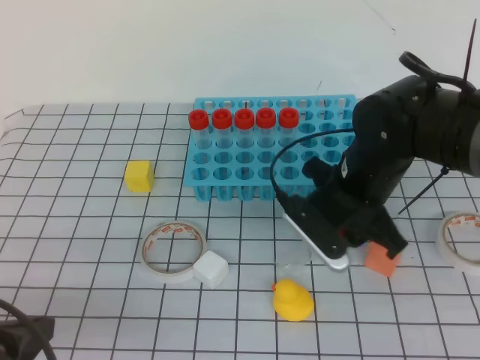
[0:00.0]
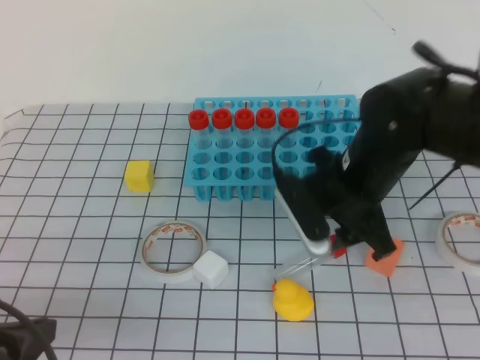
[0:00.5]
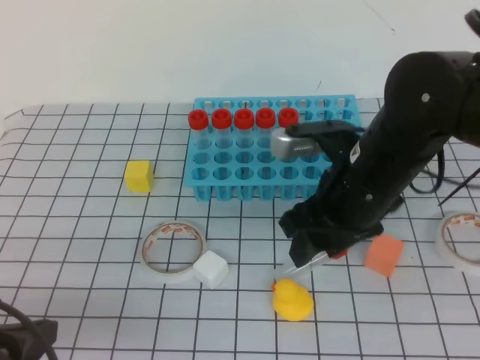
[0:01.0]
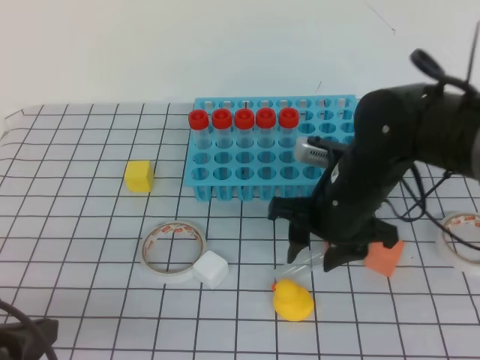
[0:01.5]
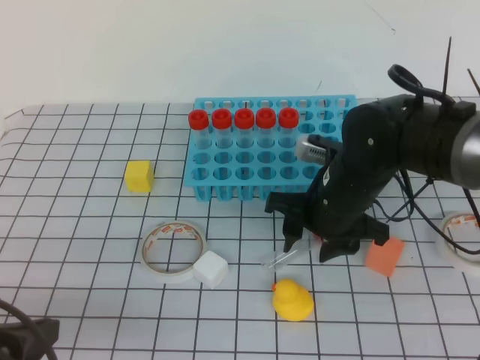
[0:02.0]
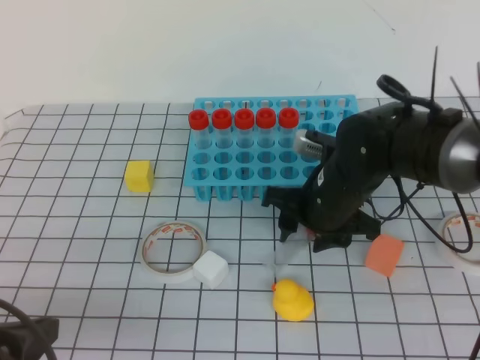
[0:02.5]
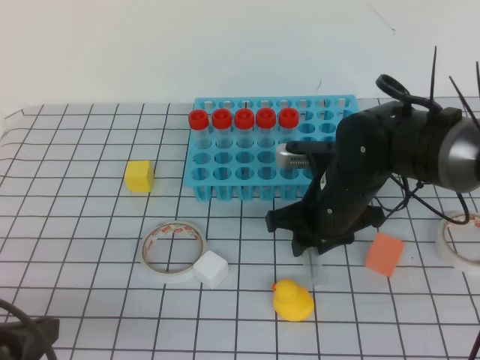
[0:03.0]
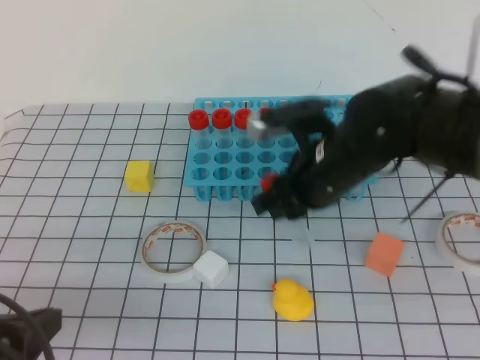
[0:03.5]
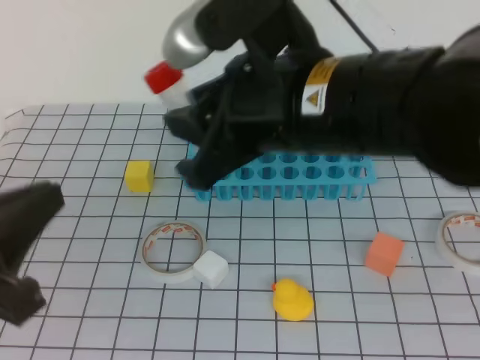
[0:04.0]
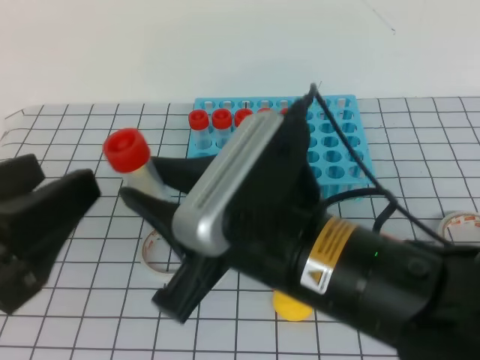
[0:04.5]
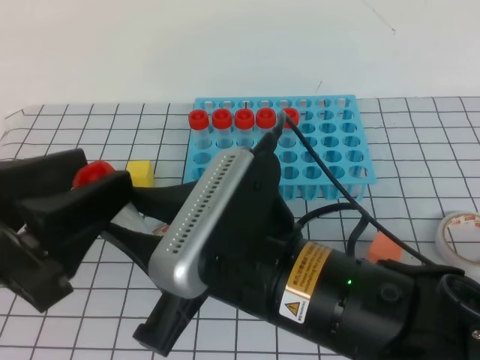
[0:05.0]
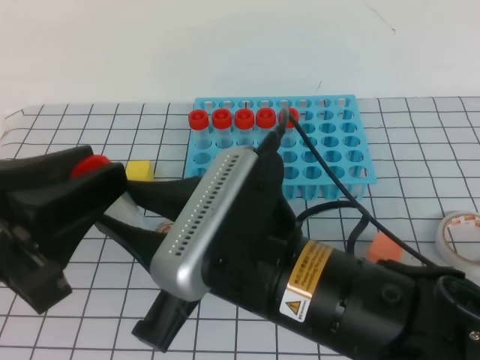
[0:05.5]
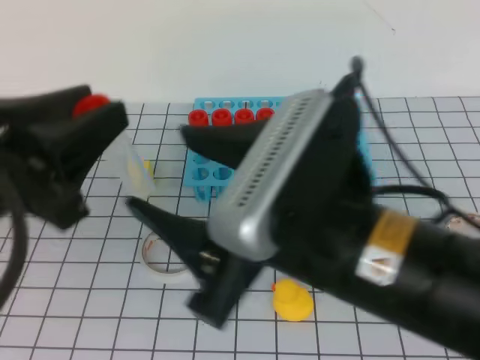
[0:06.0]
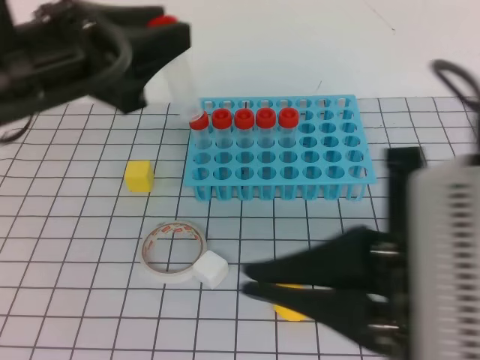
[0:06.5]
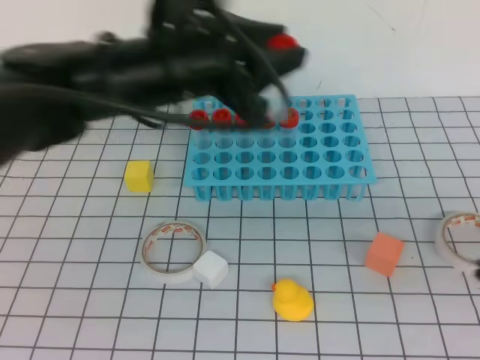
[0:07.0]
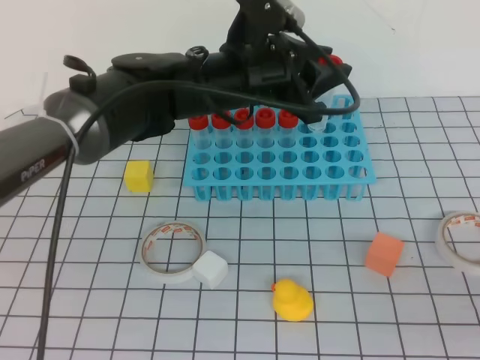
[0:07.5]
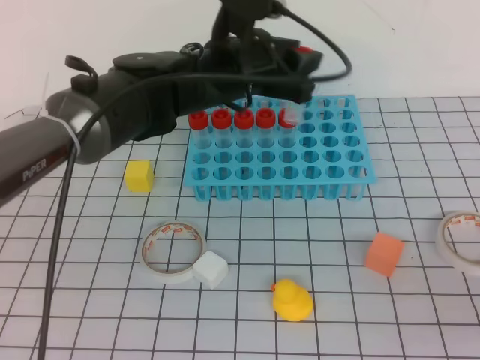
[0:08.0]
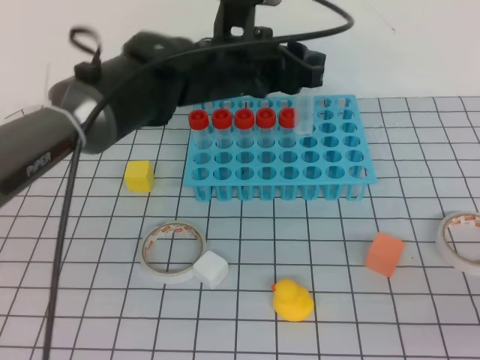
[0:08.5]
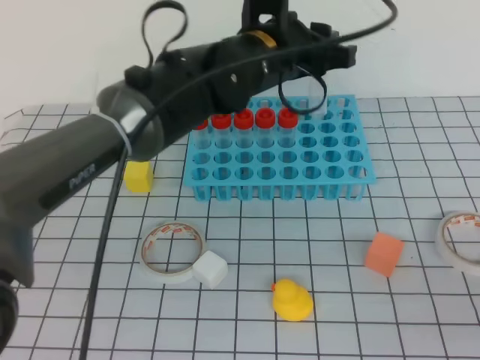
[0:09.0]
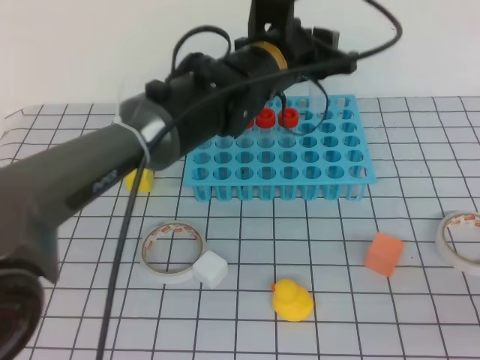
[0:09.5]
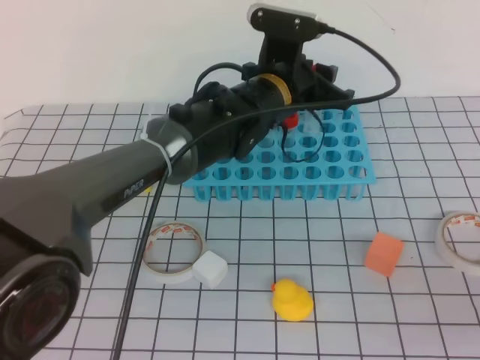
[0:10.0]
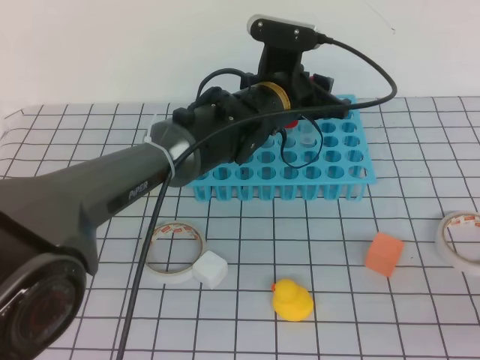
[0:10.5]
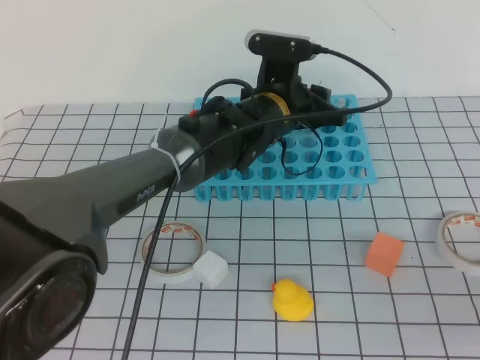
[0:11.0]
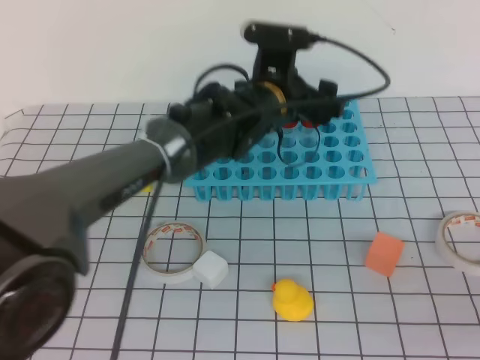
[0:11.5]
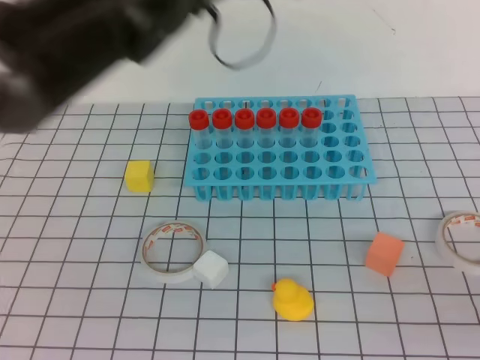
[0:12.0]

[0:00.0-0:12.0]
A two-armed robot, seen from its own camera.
0:02.0 to 0:04.0: The left gripper goes roughly 10 cm upward; the right gripper travels upward and backward by approximately 20 cm, and closes up.
0:04.0 to 0:06.0: The right gripper goes roughly 10 cm backward, and opens its fingers; the left gripper goes some 5 cm forward, and opens.
0:06.0 to 0:08.0: The right gripper goes roughly 20 cm to the right, and closes up, while the left gripper is displaced forward and to the right by about 30 cm.
0:08.0 to 0:10.0: The left gripper goes roughly 5 cm to the right.
0:10.0 to 0:12.0: The left gripper shifts some 20 cm upward, backward and to the left, and closes its fingers.

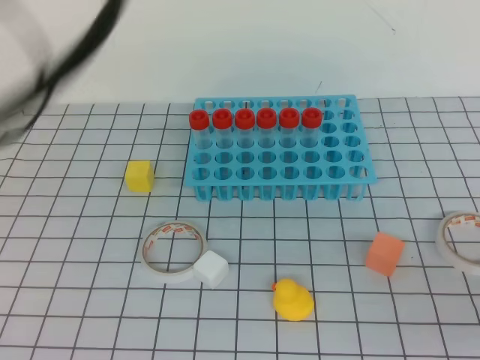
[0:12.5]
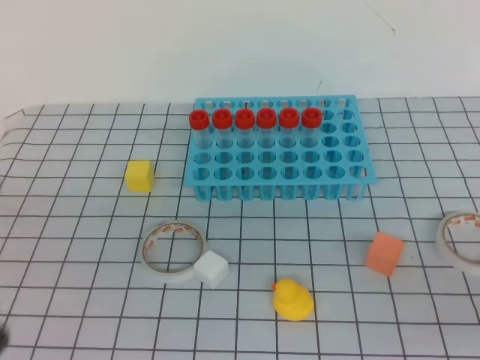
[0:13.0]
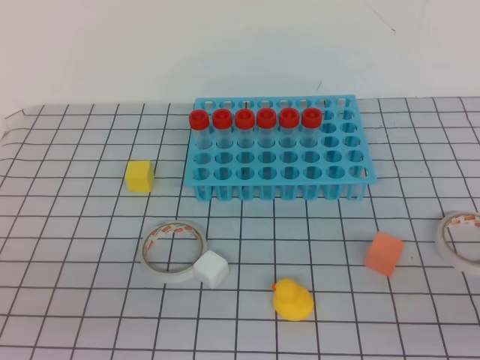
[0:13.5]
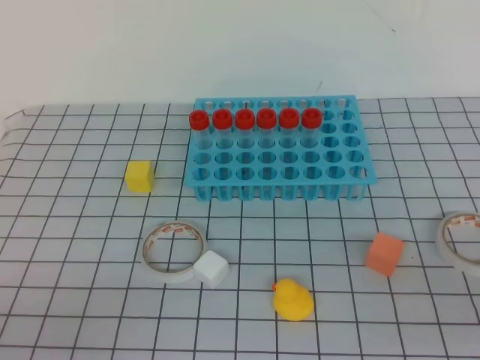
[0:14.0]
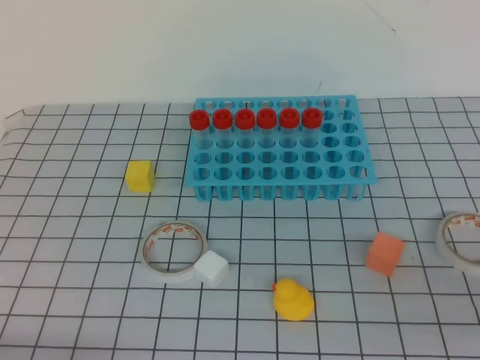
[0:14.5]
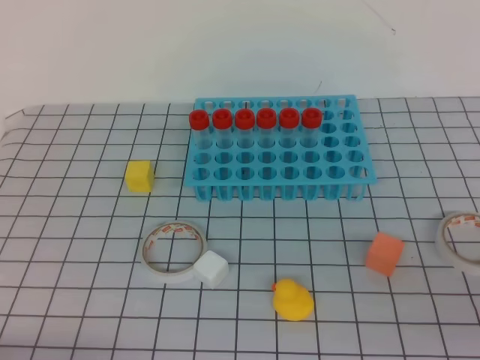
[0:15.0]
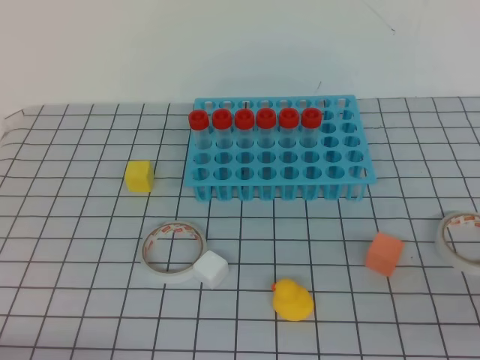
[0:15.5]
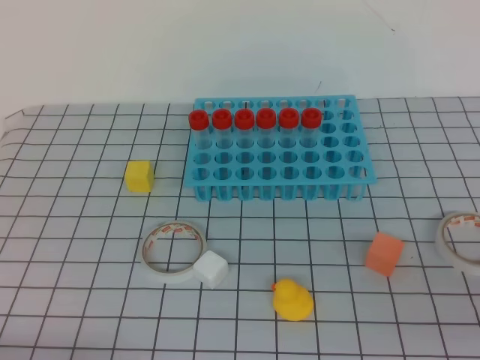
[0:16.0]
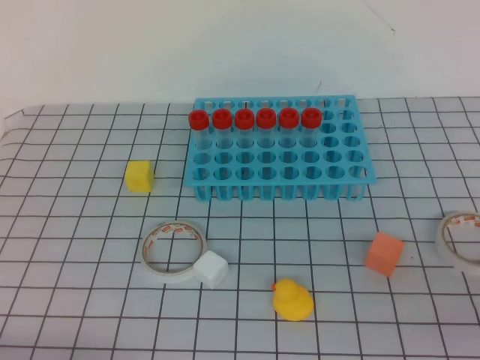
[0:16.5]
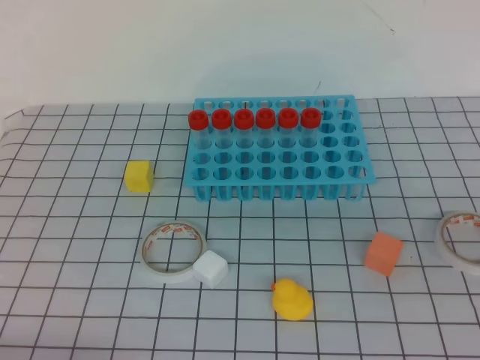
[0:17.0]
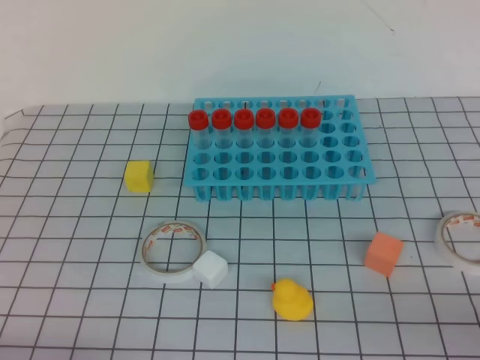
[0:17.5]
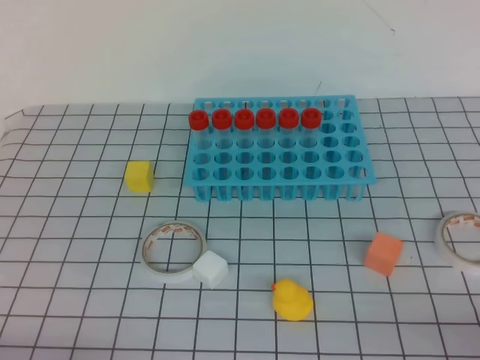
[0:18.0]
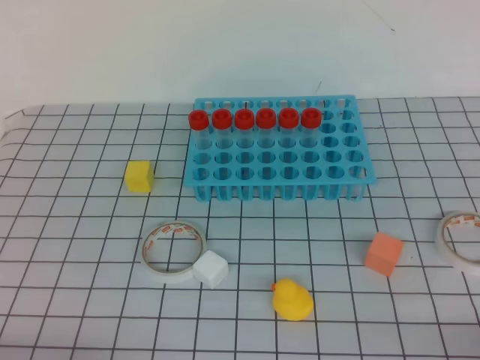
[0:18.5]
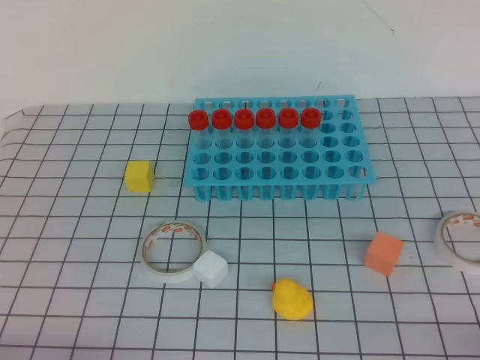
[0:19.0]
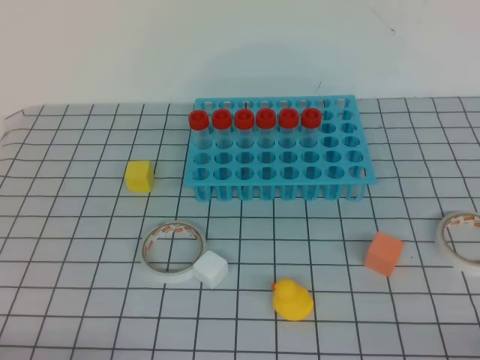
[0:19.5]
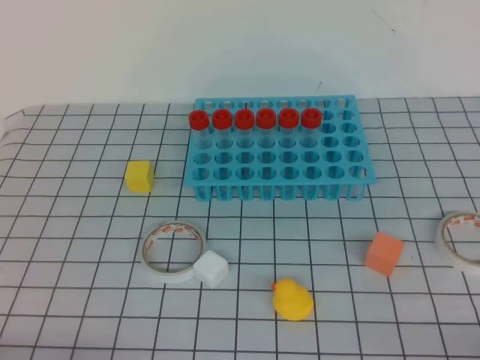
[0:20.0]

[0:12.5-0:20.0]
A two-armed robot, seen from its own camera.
0:12.5 to 0:14.5: The left gripper goes some 35 cm downward and backward.
0:16.5 to 0:18.0: The right gripper goes some 15 cm downward and to the right.
